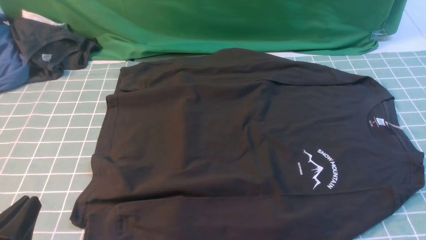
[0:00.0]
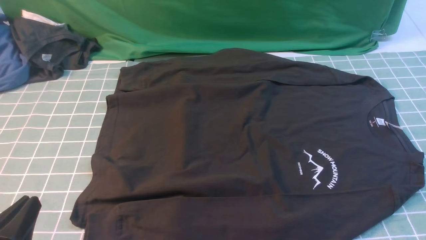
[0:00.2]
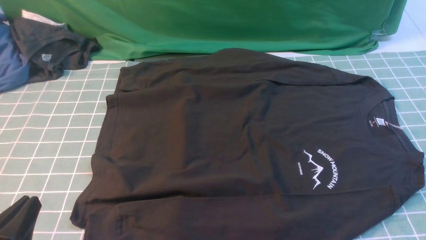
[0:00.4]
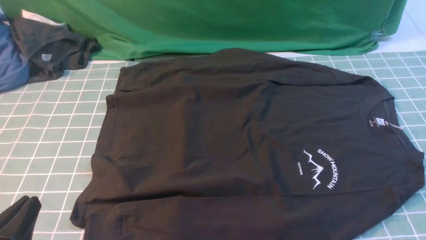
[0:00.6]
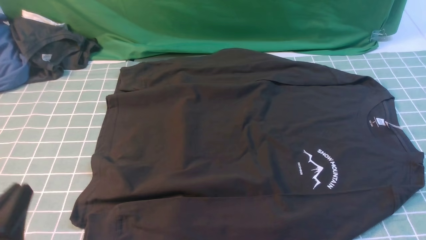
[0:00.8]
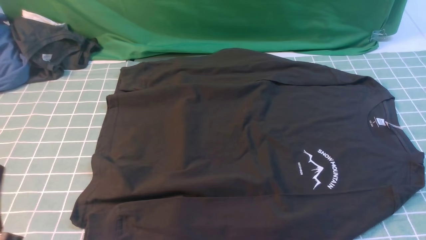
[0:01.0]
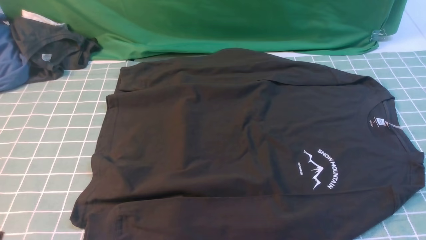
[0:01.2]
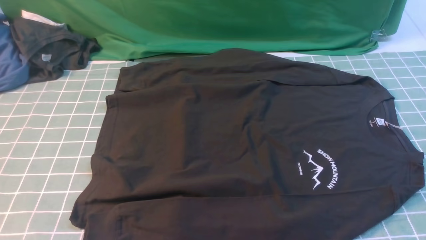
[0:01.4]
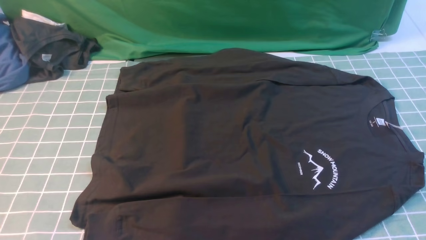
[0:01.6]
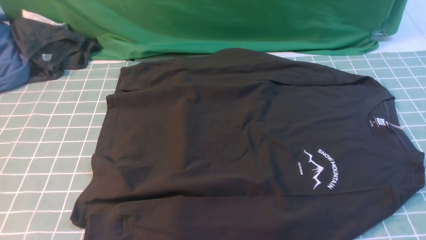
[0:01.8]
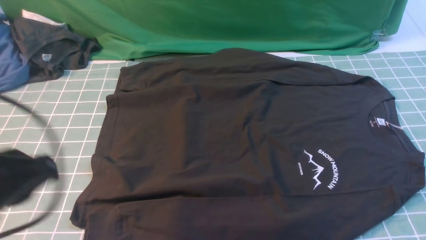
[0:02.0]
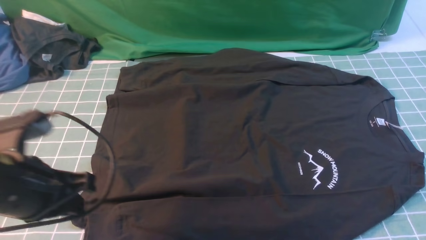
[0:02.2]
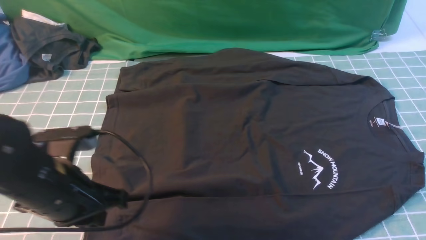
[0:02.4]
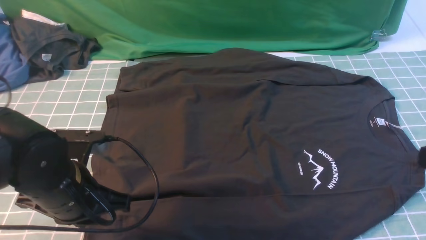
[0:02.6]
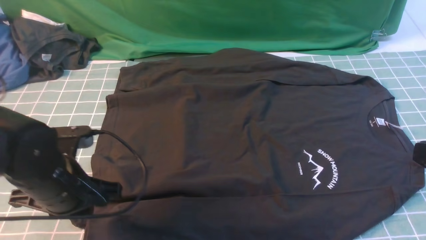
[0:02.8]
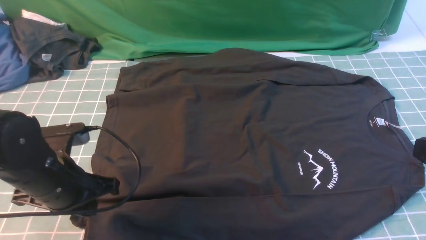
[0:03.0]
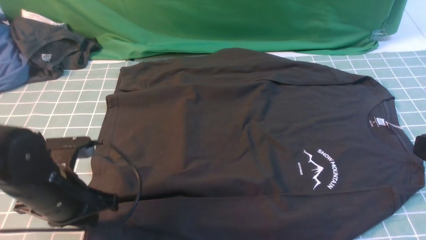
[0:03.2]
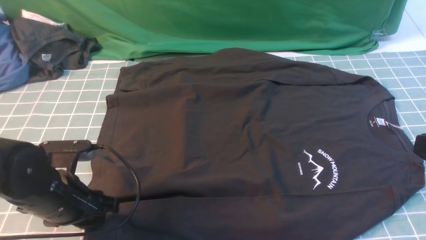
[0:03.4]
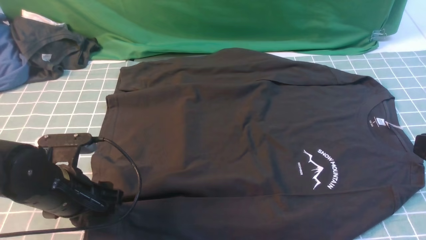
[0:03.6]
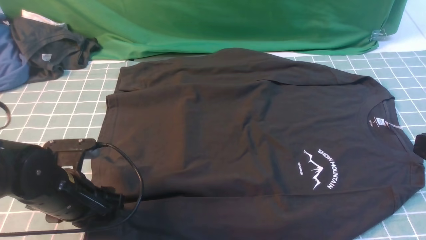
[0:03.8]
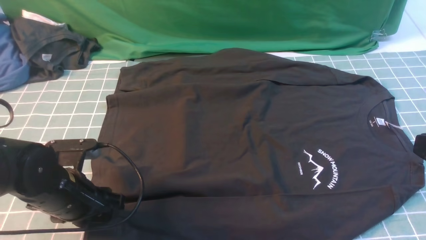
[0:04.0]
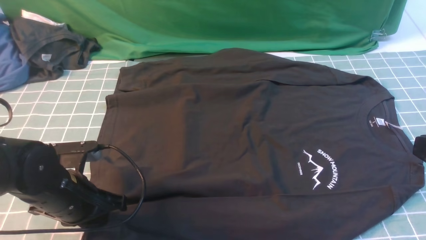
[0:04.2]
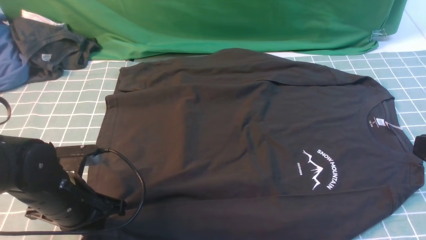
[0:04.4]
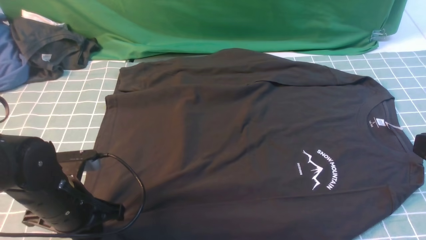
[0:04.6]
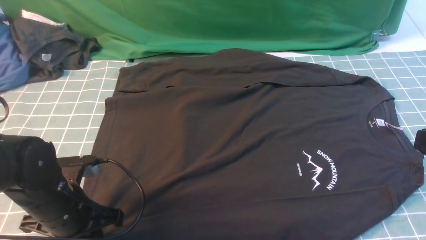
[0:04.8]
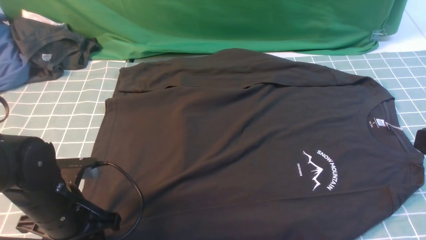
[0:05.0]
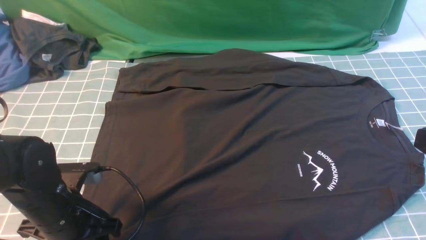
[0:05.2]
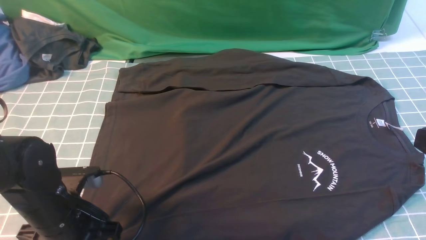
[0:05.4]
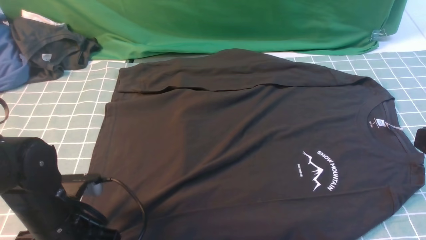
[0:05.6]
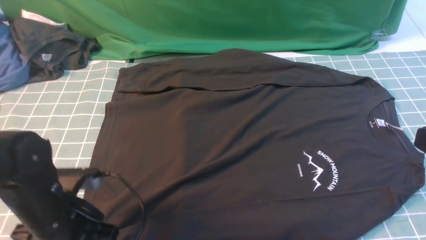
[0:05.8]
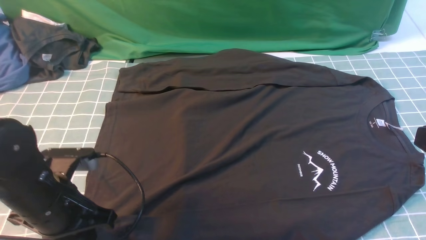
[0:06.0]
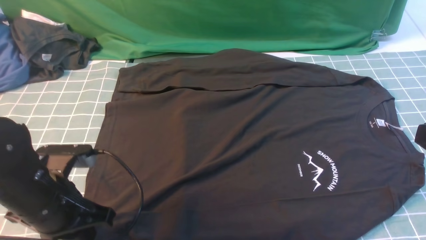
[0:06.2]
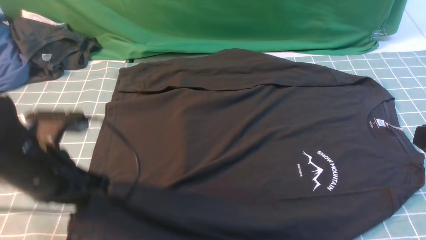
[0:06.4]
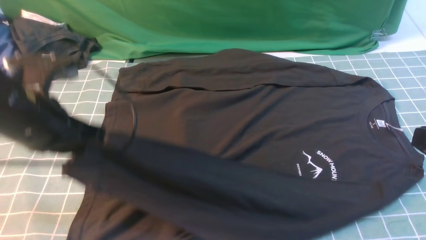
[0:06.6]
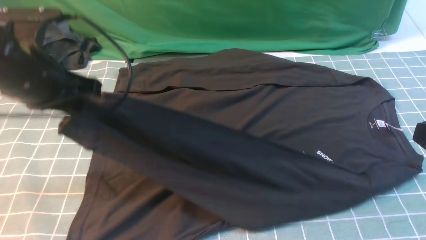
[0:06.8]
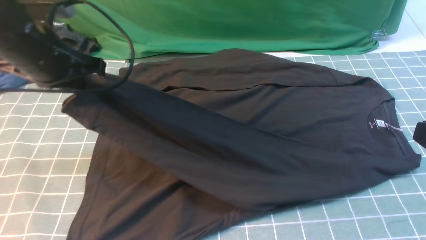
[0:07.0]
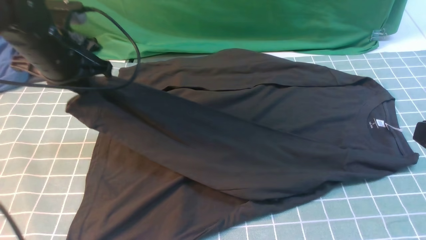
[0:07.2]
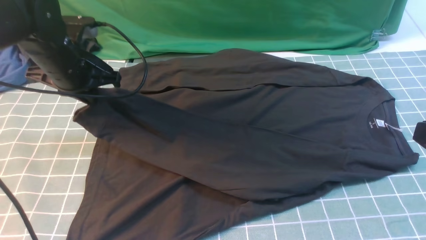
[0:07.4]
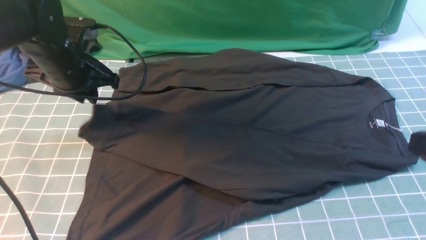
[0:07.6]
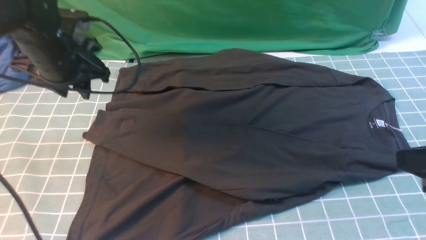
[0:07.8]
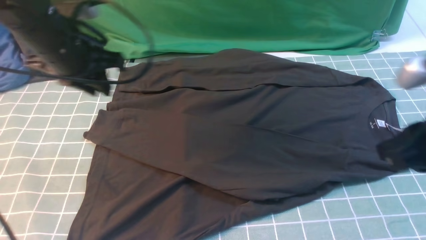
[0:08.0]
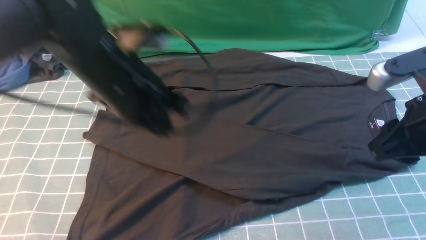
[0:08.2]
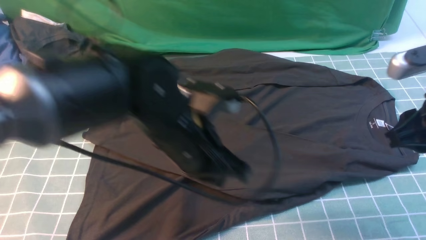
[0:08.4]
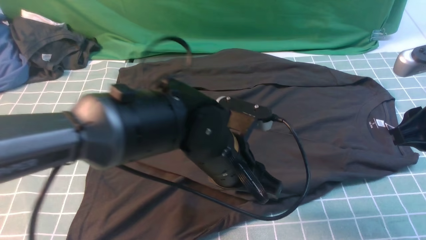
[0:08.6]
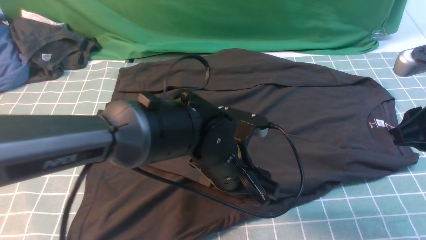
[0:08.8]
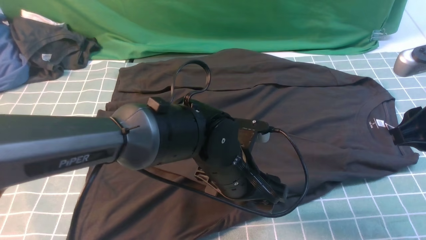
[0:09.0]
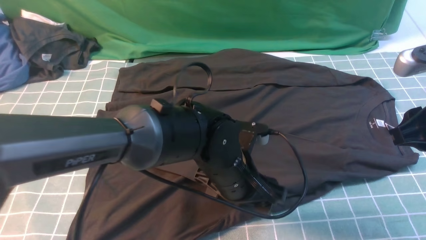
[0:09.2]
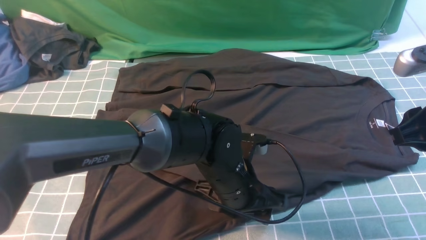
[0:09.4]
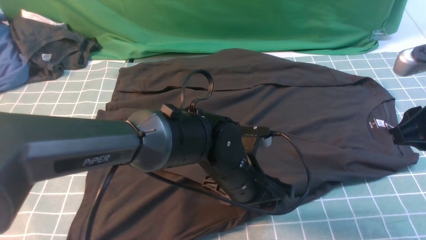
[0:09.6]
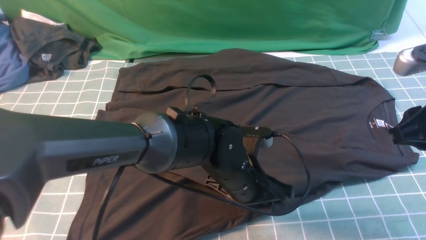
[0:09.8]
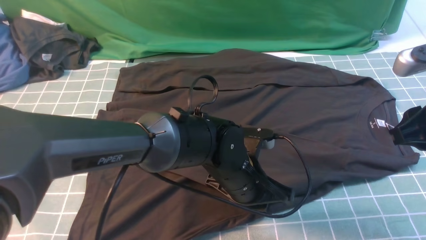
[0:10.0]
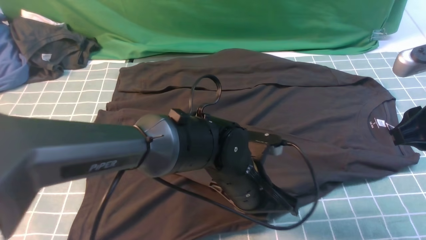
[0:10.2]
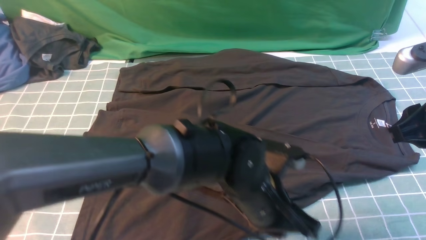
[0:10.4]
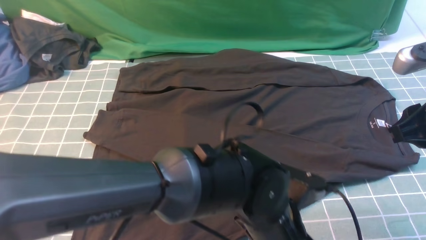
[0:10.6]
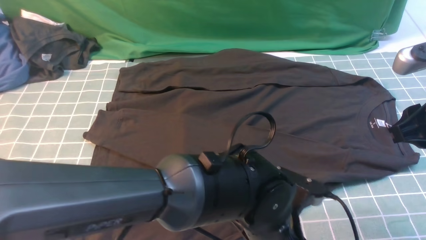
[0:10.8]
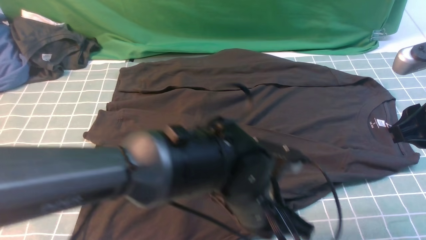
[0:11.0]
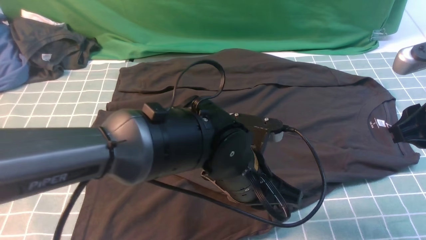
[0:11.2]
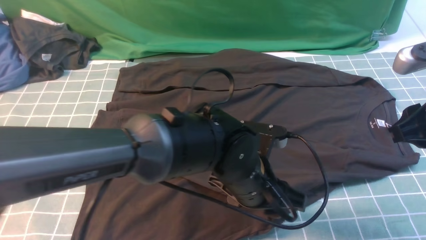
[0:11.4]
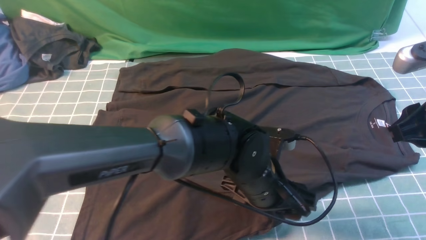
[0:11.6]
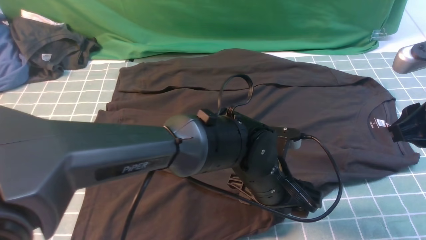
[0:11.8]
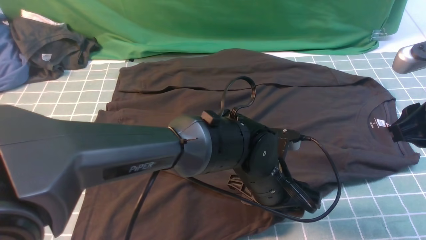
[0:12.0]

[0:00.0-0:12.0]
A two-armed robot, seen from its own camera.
Step, 0:00.0 to 0:05.8: use the left arm to clamp the cuff closest to it.
Step, 0:06.2 to 0:07.8: use the left arm to drag and place the cuff at the centered position on the left edge of the fabric.
0:00.0 to 0:01.6: The left gripper goes about 10 cm upward.
0:01.6 to 0:03.0: The right gripper shifts approximately 10 cm upward and to the left, and closes its fingers. The left gripper heads forward and downward, covering roughly 20 cm.
0:03.0 to 0:04.4: The left gripper opens, then closes once more.
0:04.4 to 0:06.0: The left gripper opens, then closes once more.
0:06.0 to 0:07.6: The left gripper goes about 20 cm forward.
0:07.6 to 0:09.0: The left gripper is displaced to the right and backward by roughly 30 cm, and opens up; the right gripper shifts about 10 cm forward, and opens.
0:09.0 to 0:10.4: The left gripper ends up roughly 5 cm from where it was, and closes.
0:10.4 to 0:12.0: The left gripper opens.

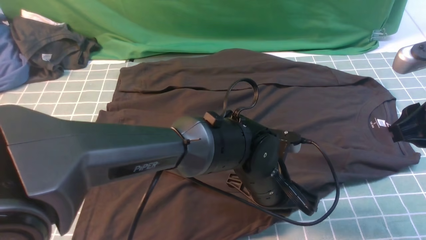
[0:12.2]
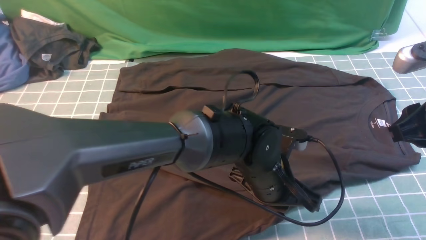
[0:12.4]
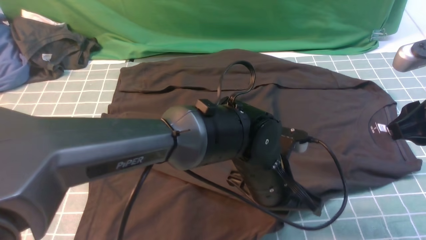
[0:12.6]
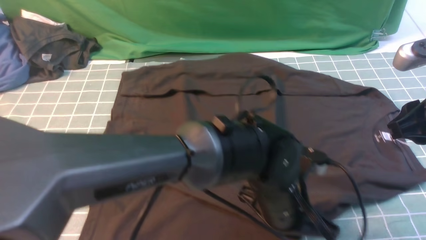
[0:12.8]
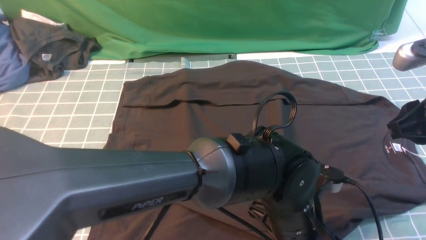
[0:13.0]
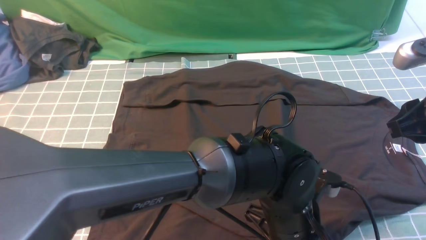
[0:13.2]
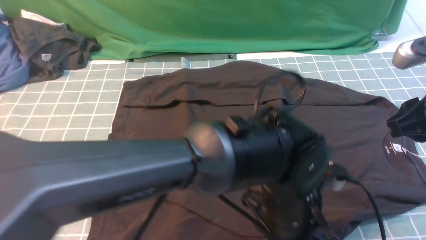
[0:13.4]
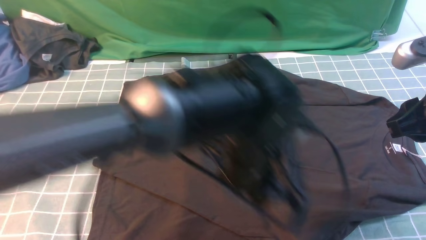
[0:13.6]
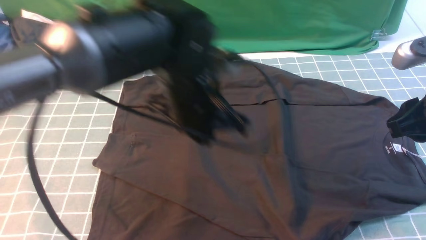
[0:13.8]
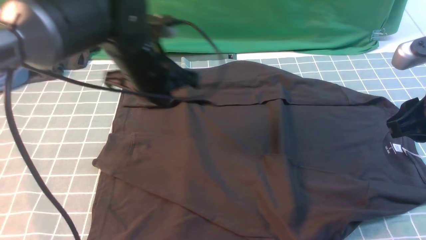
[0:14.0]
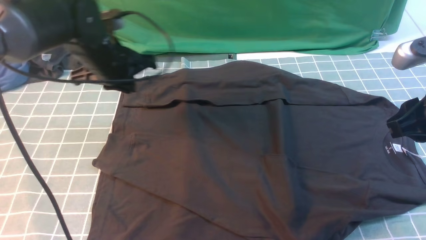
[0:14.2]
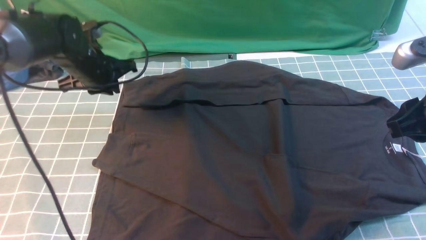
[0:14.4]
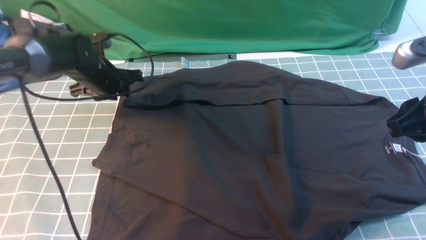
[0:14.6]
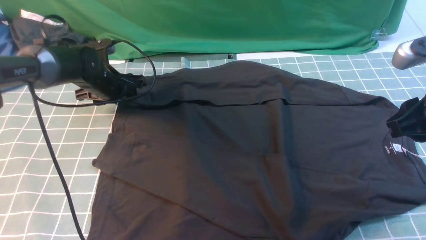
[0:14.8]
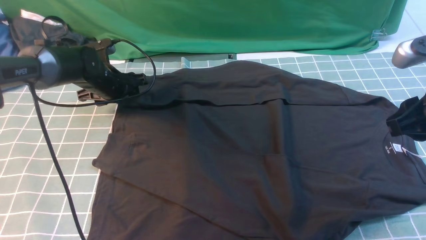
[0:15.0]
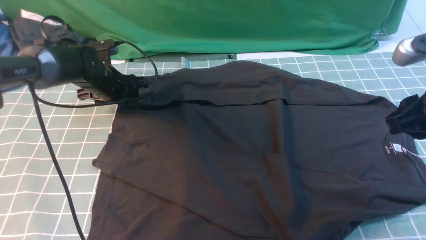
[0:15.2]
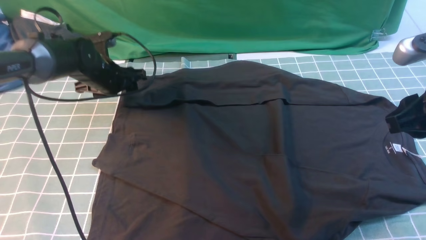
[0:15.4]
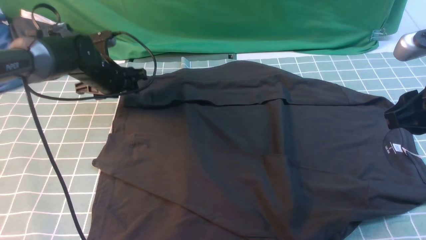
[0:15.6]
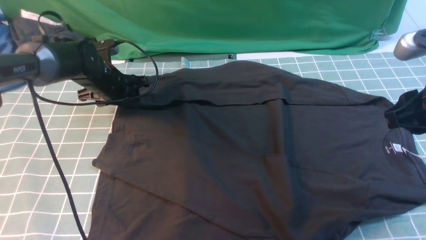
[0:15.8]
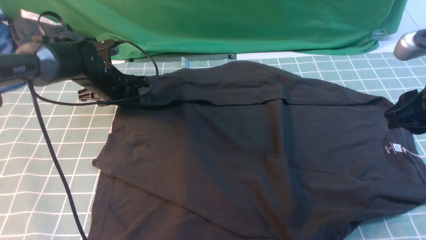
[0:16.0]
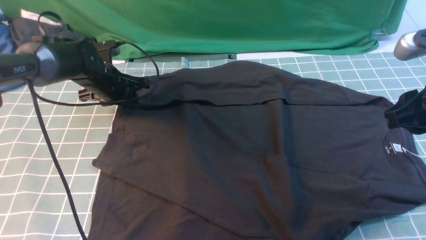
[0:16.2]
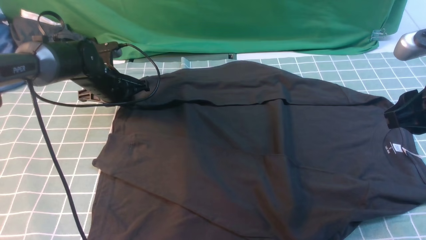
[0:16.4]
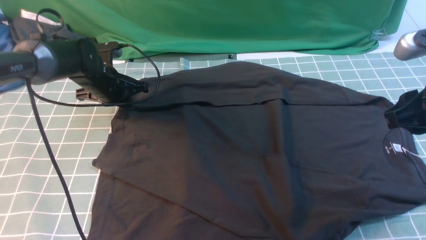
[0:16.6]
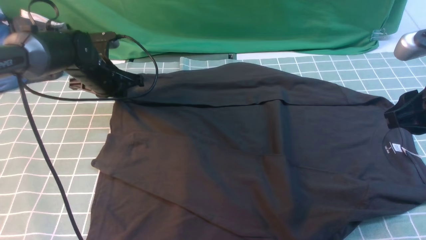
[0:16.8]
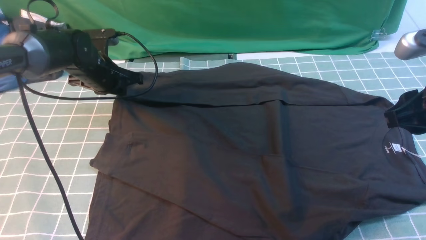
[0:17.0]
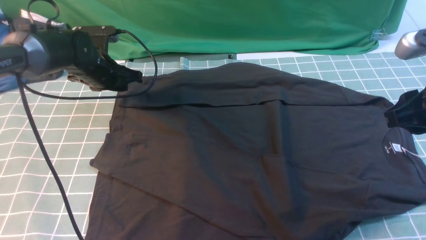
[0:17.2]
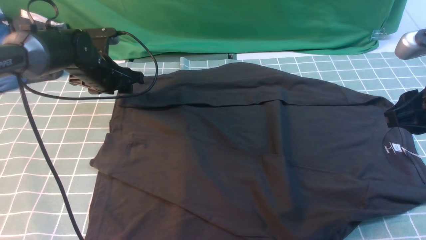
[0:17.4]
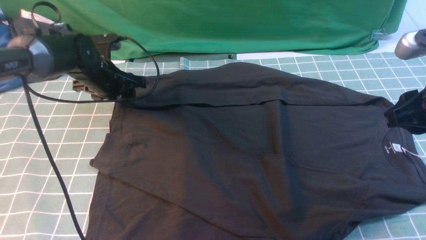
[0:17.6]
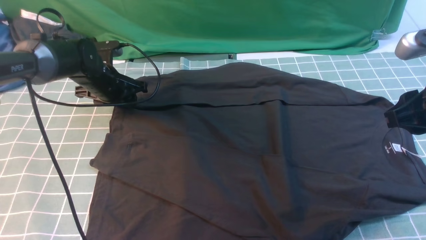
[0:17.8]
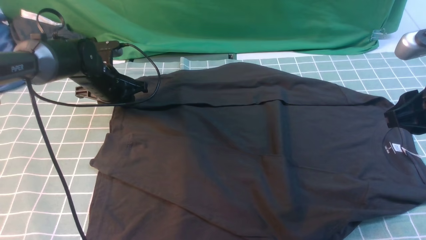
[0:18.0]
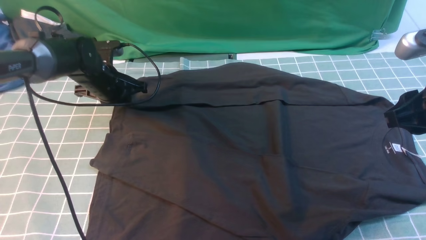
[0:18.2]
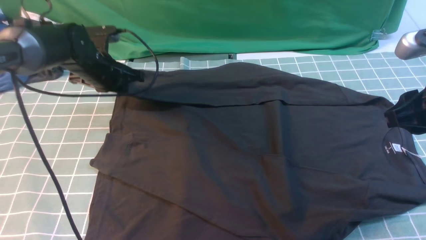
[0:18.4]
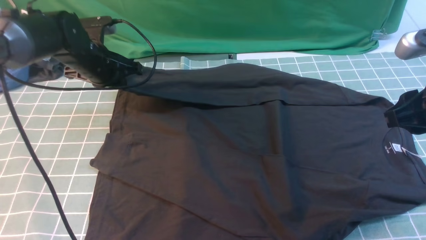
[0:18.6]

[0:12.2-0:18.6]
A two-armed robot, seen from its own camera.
Step, 0:12.2 to 0:18.4: use the left arm to clamp the cuff farthest from it.
0:12.2 to 0:13.8: The left gripper is displaced upward, to the left and forward by approximately 15 cm.
0:13.8 to 0:15.4: The left gripper moves to the left, forward and downward, roughly 25 cm, and opens its fingers.
0:15.4 to 0:17.0: The left gripper closes.
0:17.0 to 0:18.6: The left gripper opens, then closes again.
